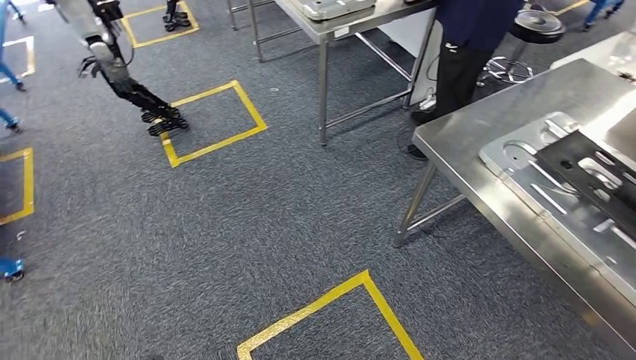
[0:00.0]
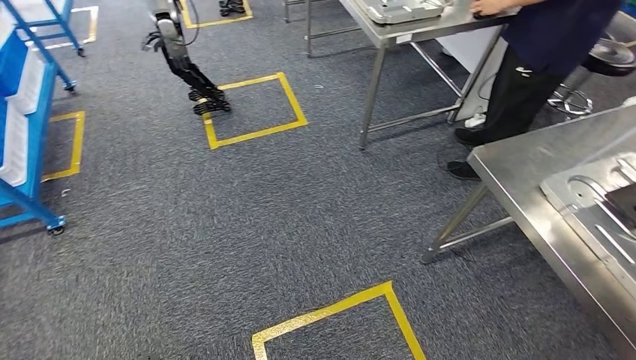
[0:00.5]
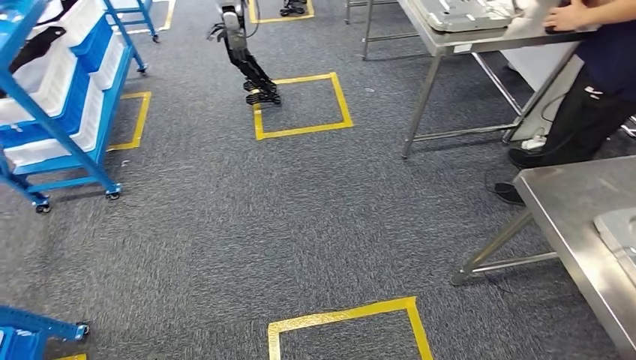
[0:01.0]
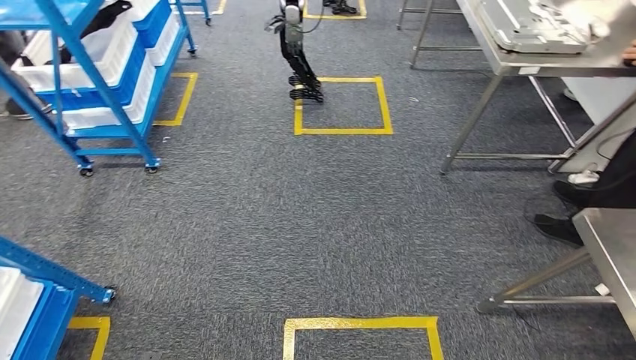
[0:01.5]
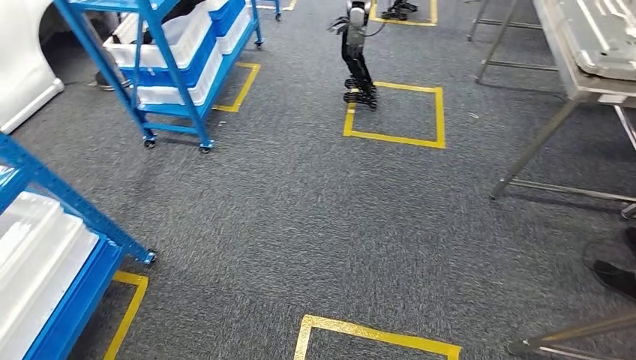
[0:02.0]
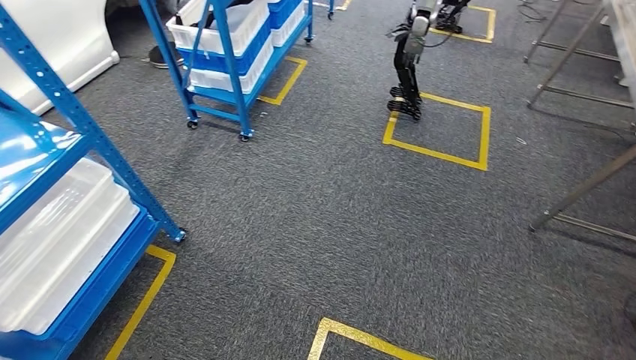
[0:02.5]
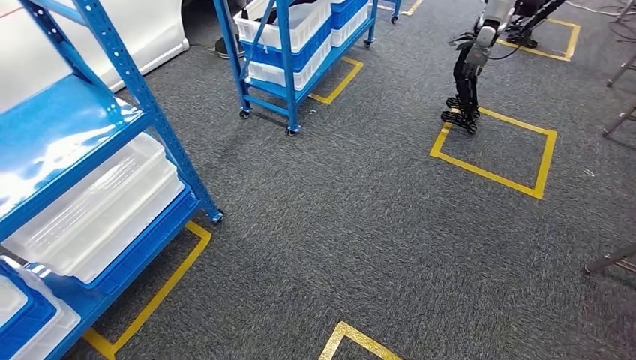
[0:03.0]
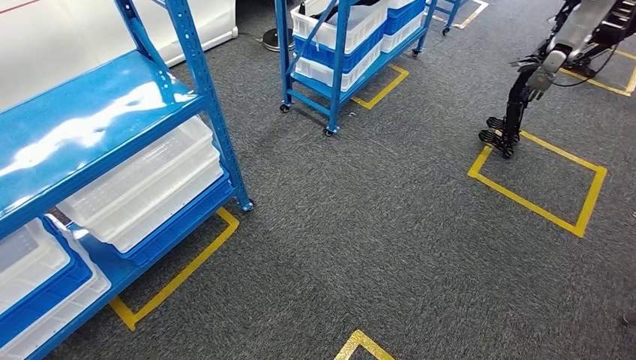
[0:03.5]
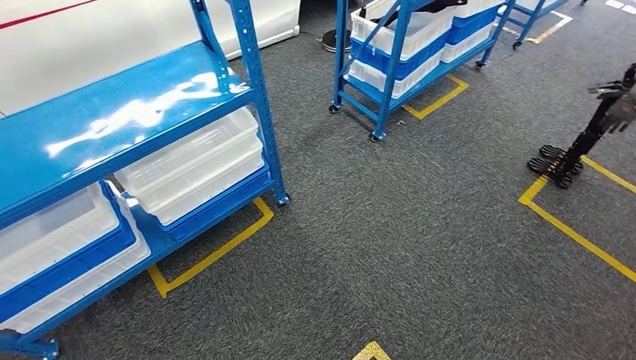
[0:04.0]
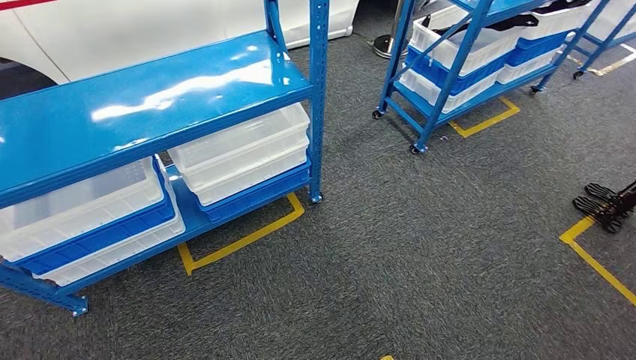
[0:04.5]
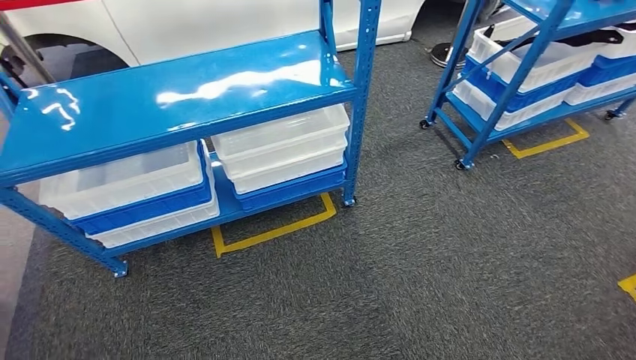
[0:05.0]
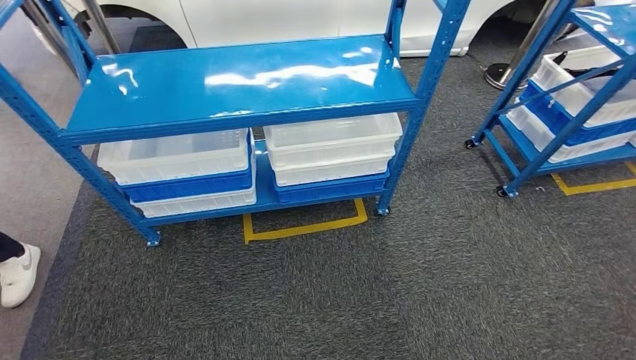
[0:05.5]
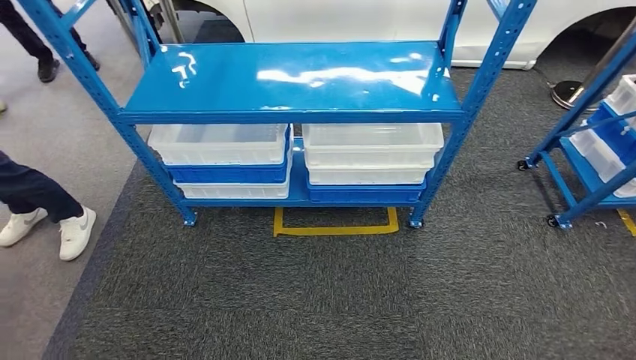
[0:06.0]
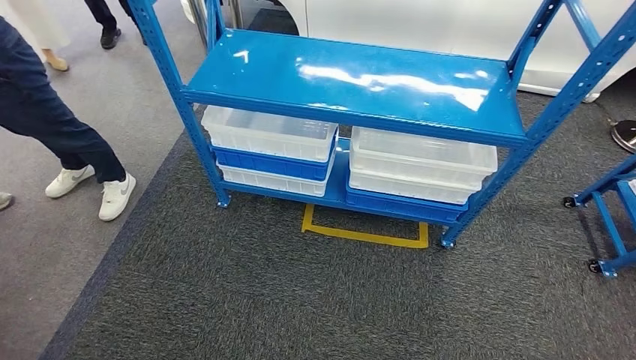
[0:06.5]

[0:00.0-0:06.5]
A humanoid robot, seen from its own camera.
Step, 0:00.0 to 0:06.5: Move to the initial position of the shelf.
